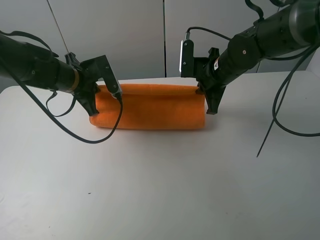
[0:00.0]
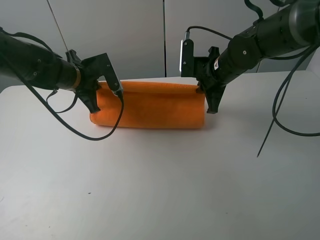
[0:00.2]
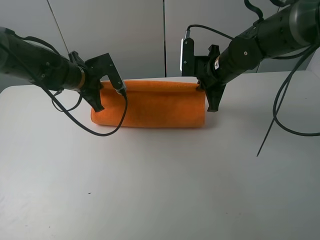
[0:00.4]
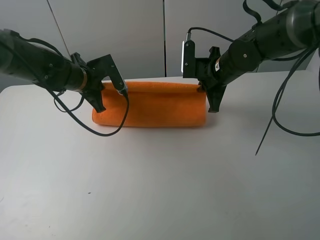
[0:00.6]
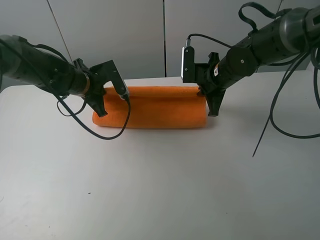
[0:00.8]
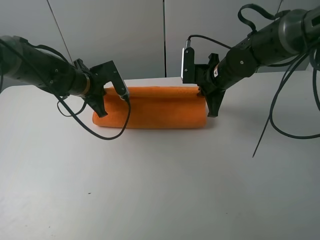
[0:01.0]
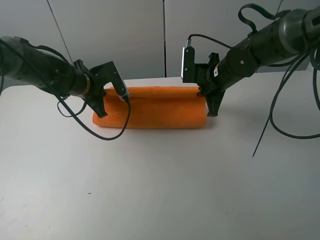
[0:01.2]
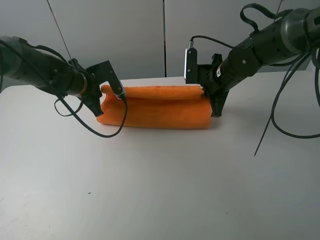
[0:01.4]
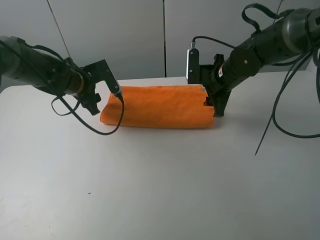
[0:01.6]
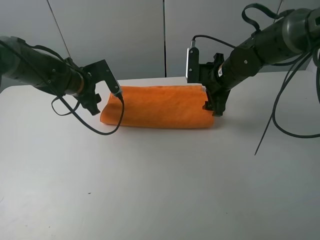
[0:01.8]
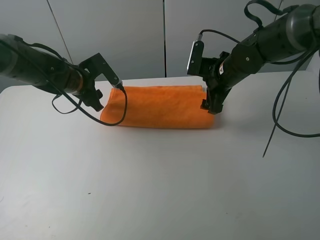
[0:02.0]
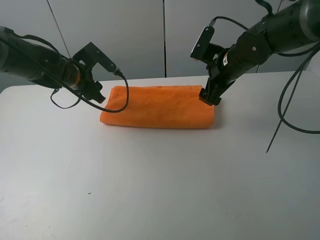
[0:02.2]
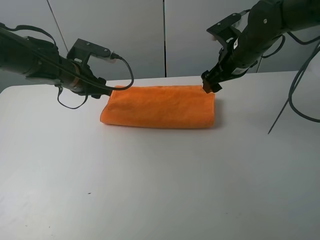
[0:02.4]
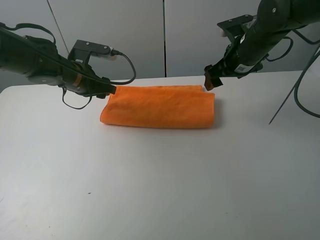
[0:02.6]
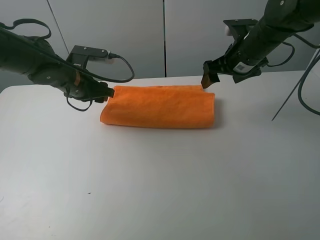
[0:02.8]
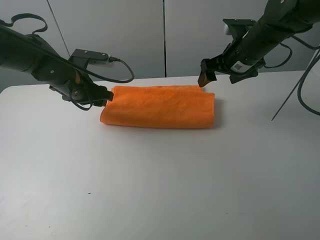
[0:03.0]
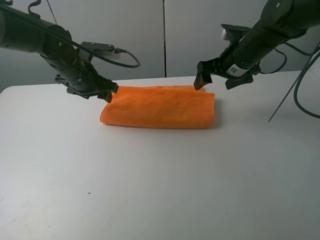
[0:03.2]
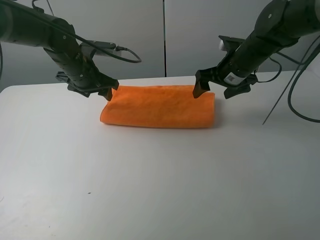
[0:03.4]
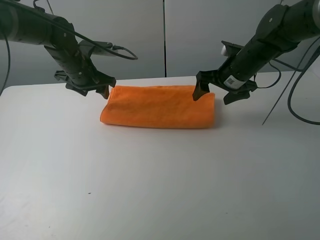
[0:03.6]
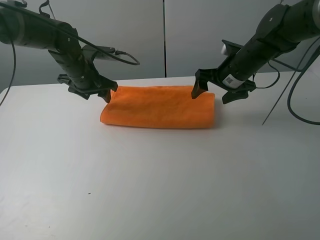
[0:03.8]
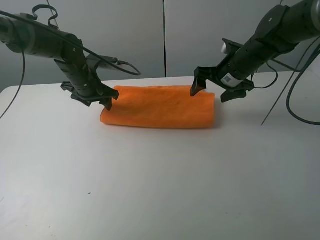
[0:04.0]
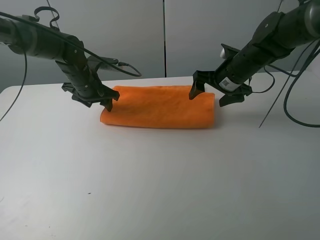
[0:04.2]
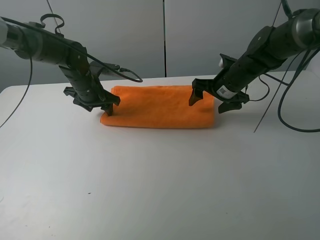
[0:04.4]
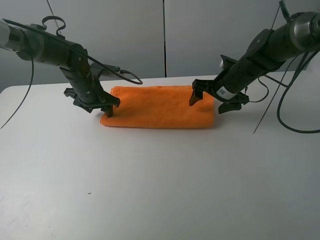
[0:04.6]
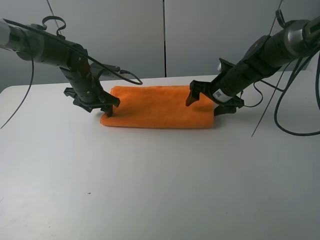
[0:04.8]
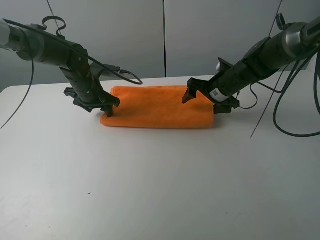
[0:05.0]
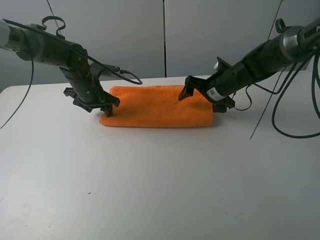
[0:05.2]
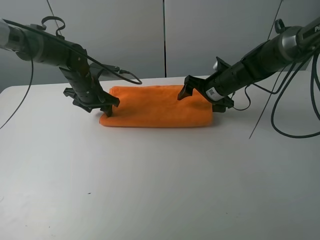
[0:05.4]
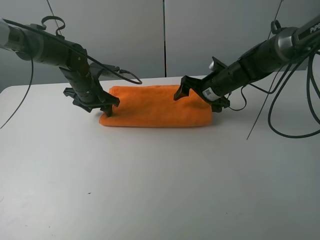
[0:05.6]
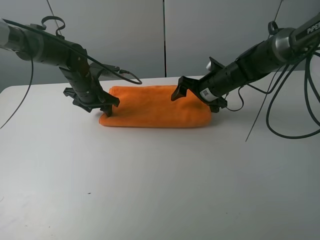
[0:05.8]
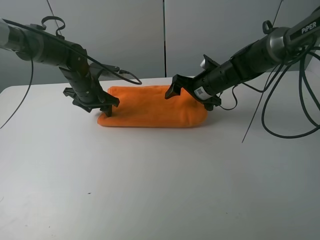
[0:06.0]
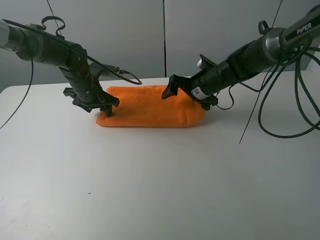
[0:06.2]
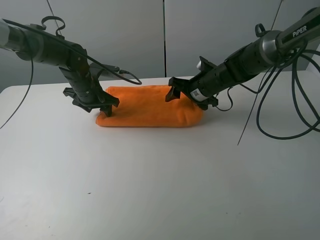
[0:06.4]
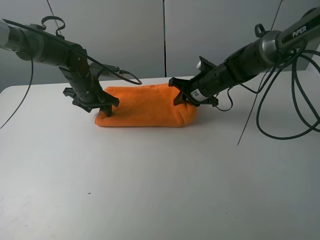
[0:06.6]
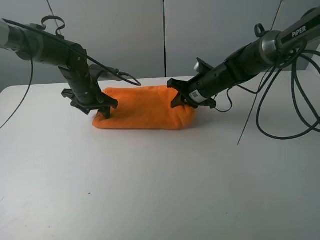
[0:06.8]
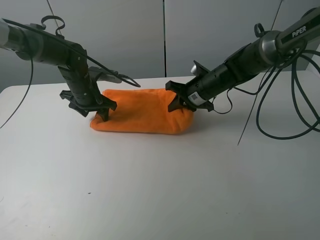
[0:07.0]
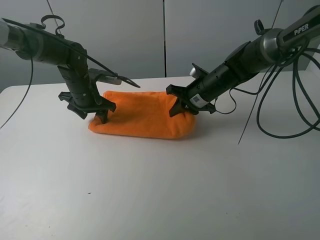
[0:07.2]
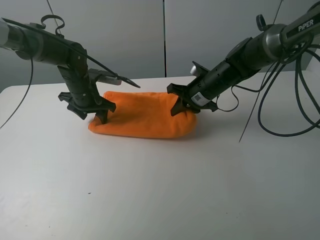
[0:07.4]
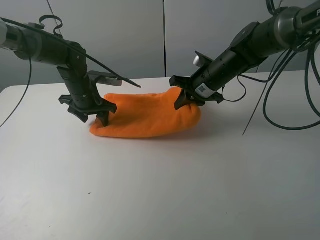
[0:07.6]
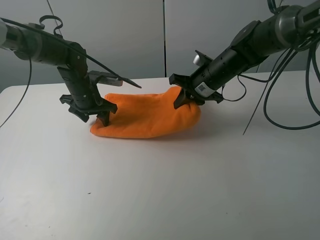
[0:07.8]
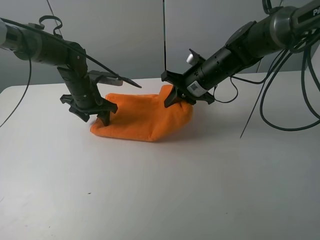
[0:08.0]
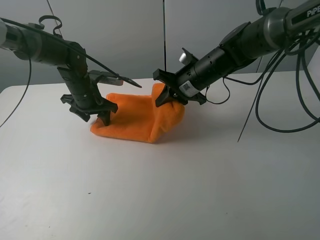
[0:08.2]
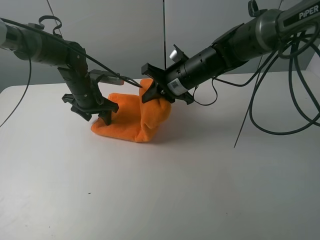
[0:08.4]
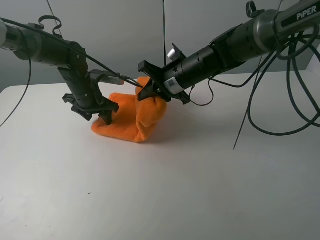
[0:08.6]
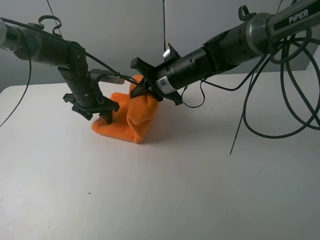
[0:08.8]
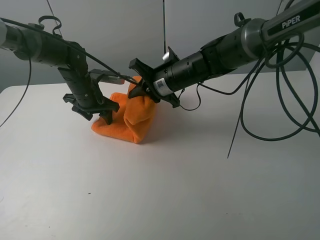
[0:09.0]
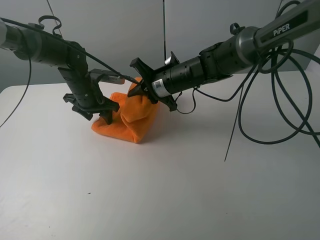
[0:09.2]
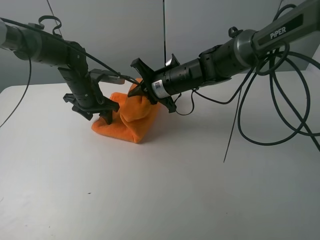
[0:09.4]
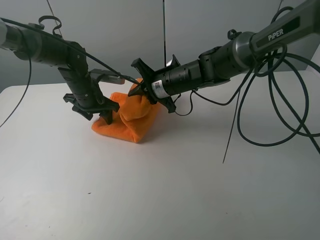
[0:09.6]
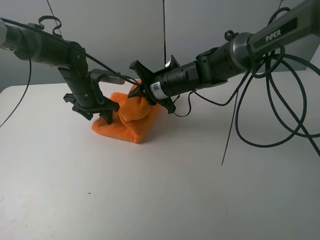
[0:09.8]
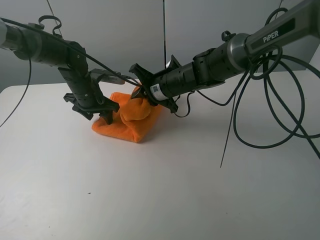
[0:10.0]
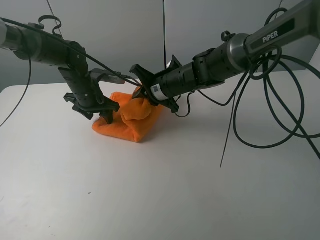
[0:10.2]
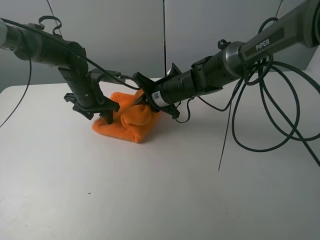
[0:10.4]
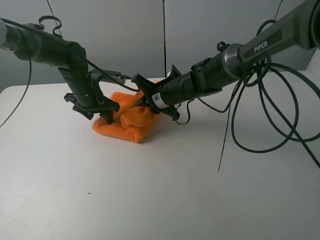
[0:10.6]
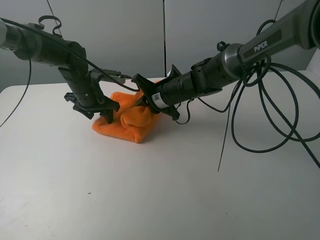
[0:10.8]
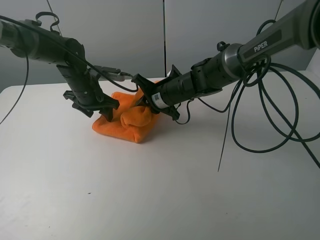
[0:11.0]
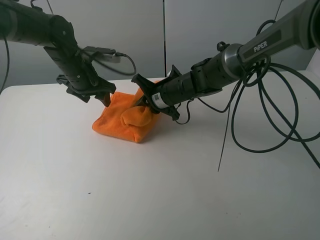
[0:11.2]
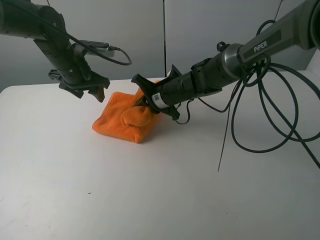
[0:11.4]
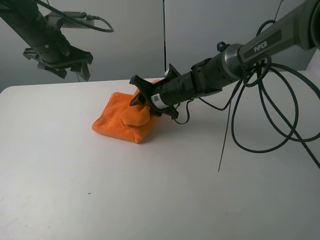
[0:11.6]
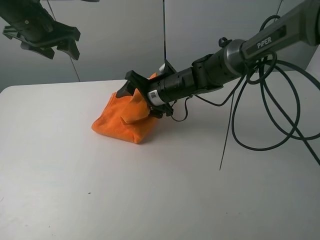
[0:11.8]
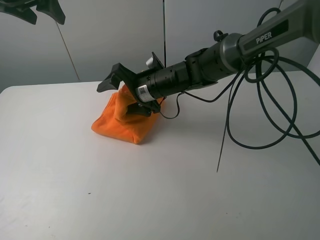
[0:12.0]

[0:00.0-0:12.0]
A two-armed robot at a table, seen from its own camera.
Task of the whole recording: fold the towels on the table.
Step, 0:00.0 to 0:02.6: Fold the orange towel upwards with the right gripper.
Step, 0:02.8 to 0:04.6: Press on the orange towel with the left gripper.
0:00.0 to 0:01.6: The right gripper opens up; the left gripper opens up.
0:01.6 to 0:03.0: The right gripper shifts some 5 cm upward.
0:03.0 to 0:04.4: The left gripper shifts by approximately 5 cm. The right gripper is displaced downward by approximately 10 cm.
0:04.4 to 0:06.0: The right gripper moves some 5 cm.
0:06.0 to 0:07.6: The right gripper closes up.
0:07.6 to 0:09.0: The right gripper heads to the left, covering some 10 cm.
0:09.0 to 0:10.4: The grippers stay close to where they were, moving slightly.
0:10.4 to 0:12.0: The left gripper shifts about 25 cm upward, while the right gripper moves some 5 cm, and opens.

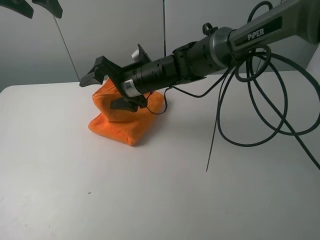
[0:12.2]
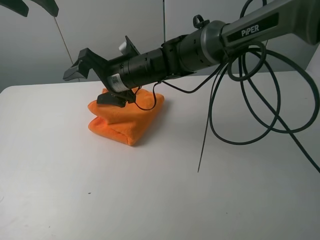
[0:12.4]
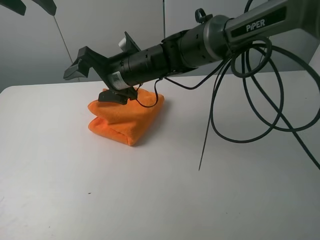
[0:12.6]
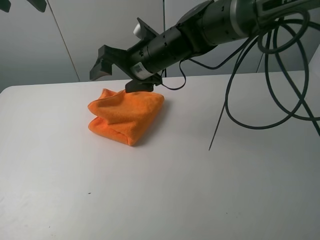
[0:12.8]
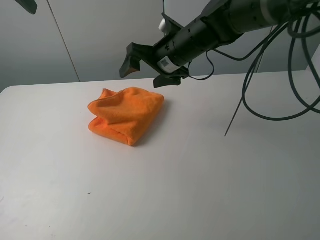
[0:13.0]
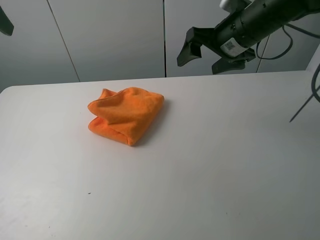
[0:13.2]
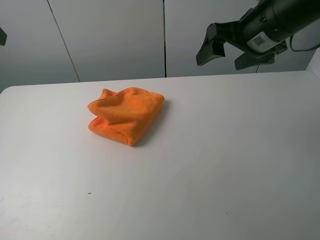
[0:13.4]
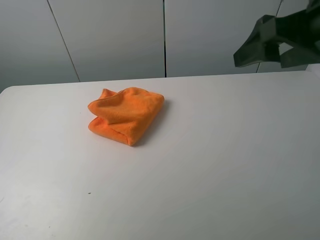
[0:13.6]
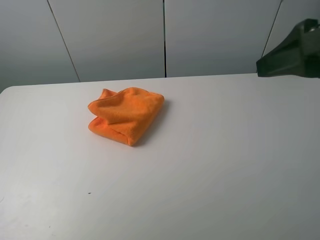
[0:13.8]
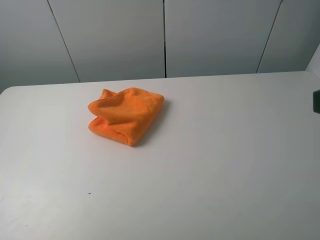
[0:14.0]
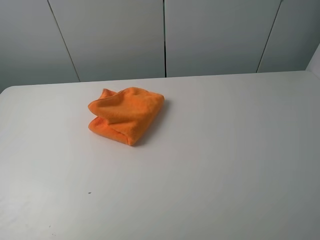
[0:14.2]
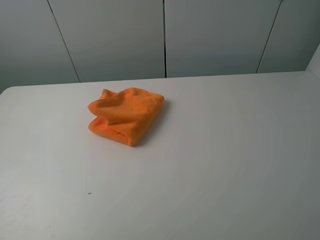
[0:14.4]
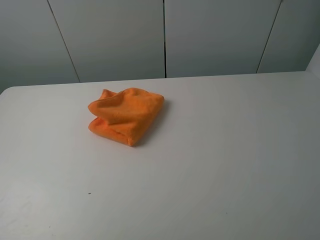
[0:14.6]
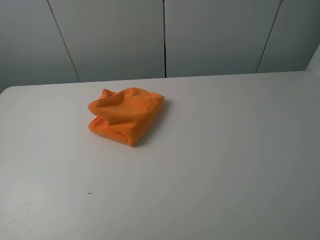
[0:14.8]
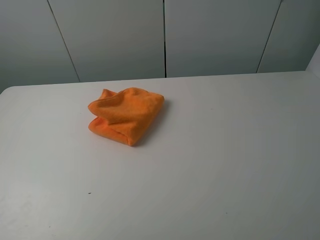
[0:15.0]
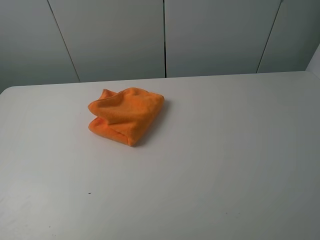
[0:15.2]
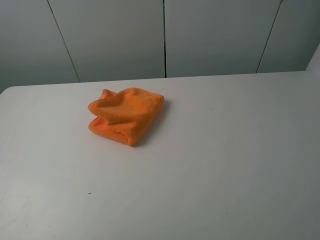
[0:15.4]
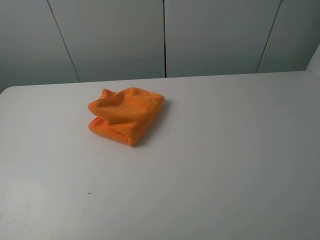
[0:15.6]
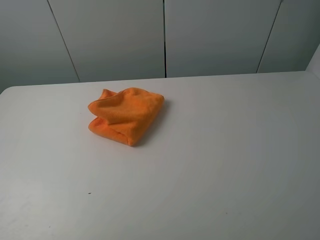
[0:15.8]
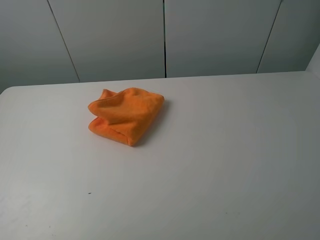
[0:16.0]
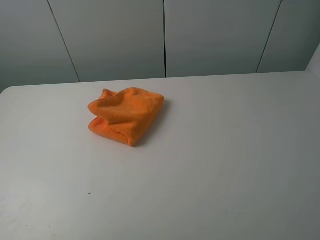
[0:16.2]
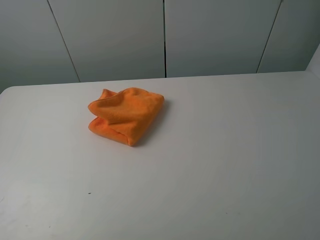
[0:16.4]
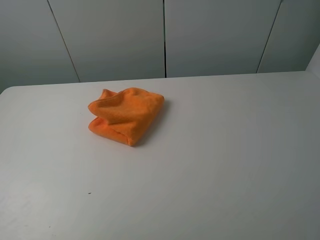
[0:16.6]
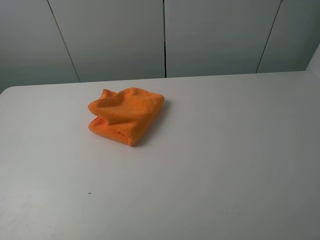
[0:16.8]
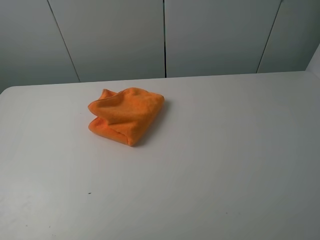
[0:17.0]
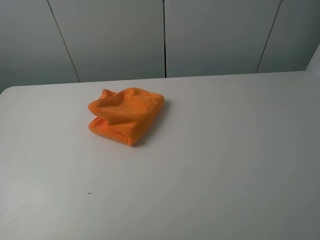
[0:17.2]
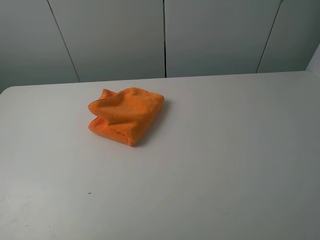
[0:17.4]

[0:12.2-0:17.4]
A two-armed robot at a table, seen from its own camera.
Task of the whole recording: fold the towels on the table.
0:12.2 to 0:14.0: The left gripper heads backward, covering approximately 35 cm, while the right gripper goes roughly 40 cm to the right, backward and upward.
0:14.0 to 0:15.6: The right gripper goes about 5 cm backward; the left gripper shifts some 5 cm downward.
